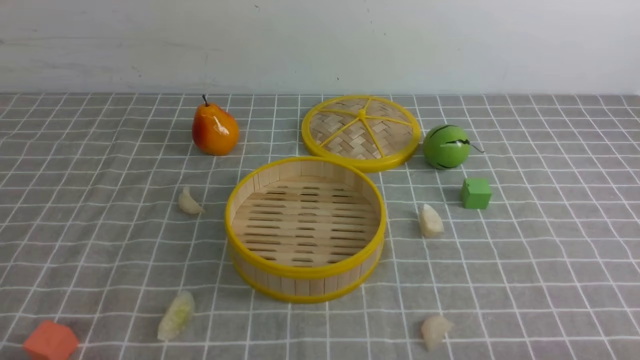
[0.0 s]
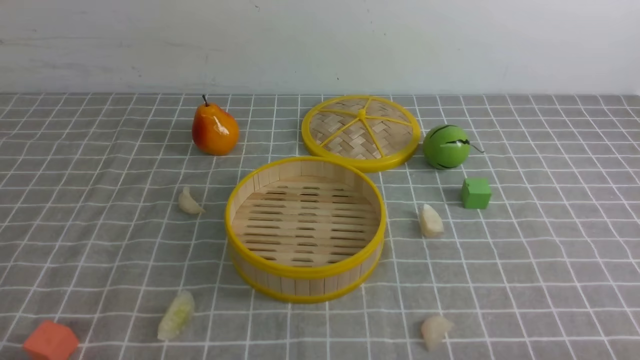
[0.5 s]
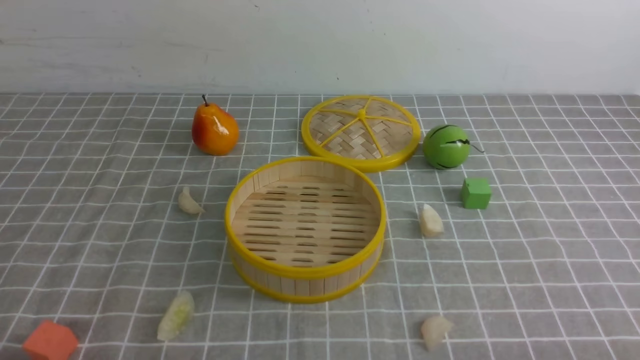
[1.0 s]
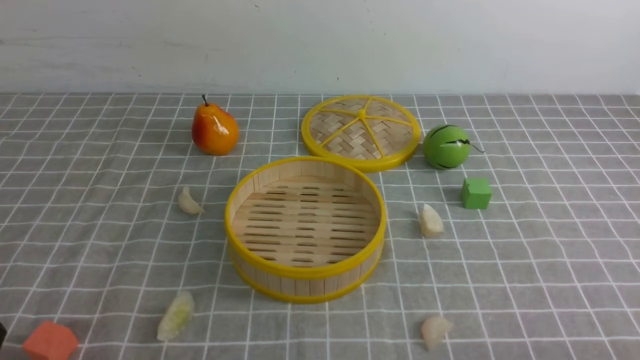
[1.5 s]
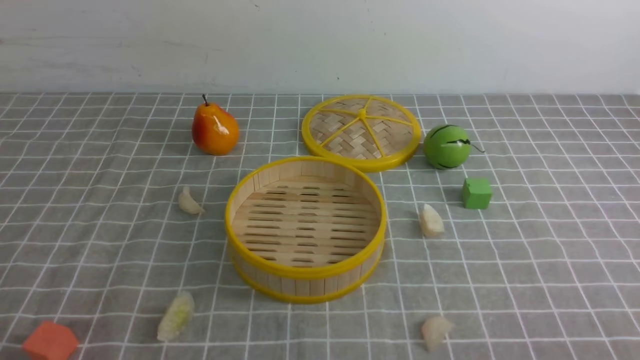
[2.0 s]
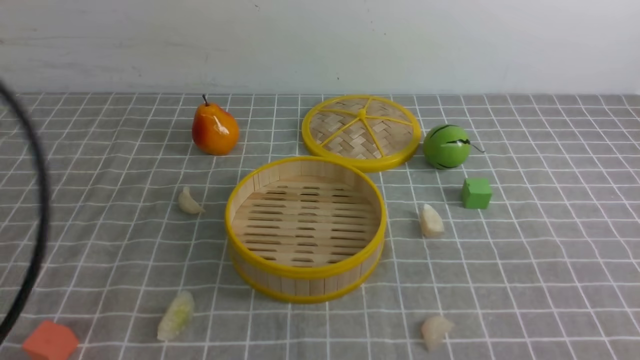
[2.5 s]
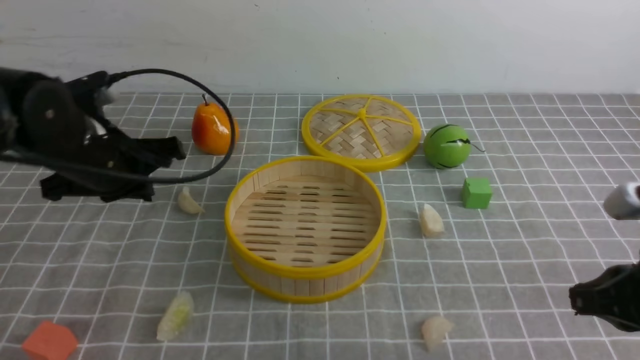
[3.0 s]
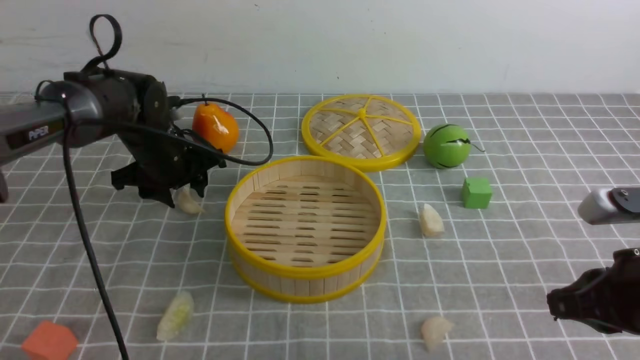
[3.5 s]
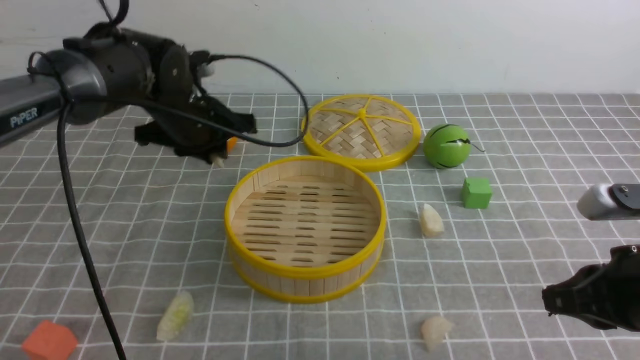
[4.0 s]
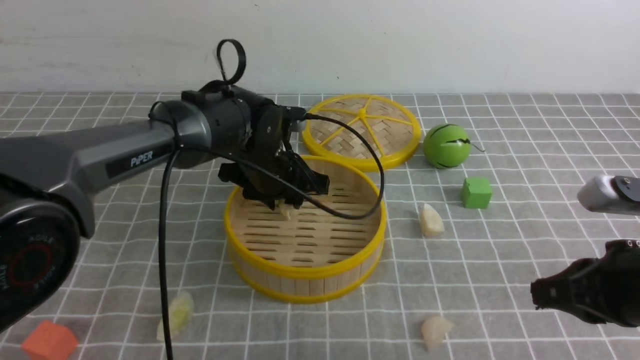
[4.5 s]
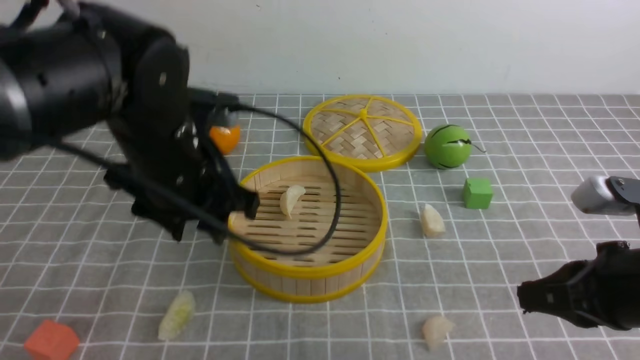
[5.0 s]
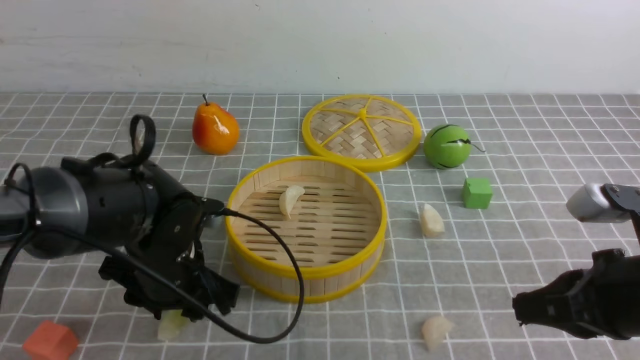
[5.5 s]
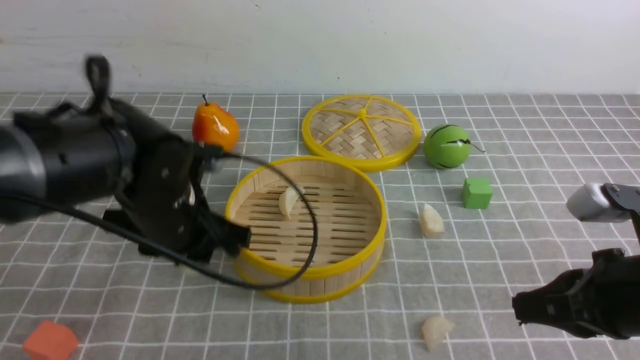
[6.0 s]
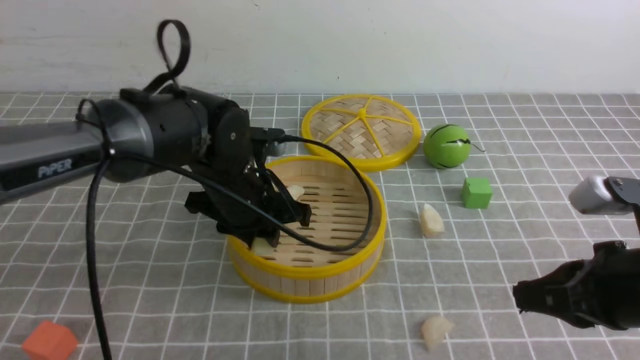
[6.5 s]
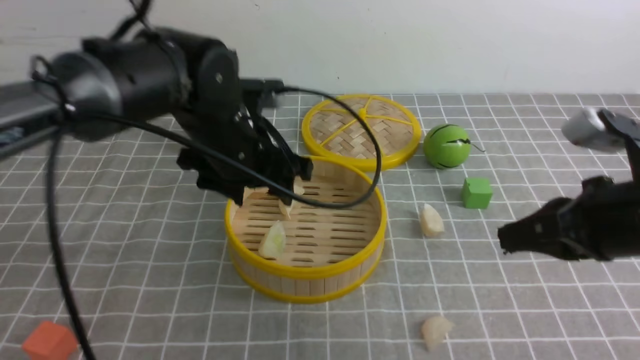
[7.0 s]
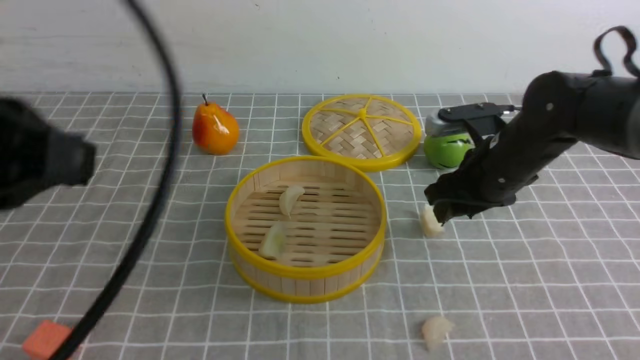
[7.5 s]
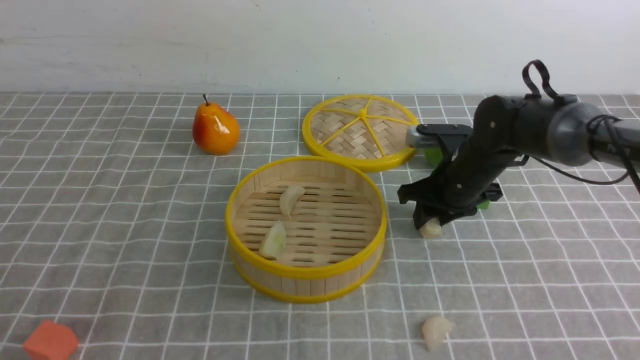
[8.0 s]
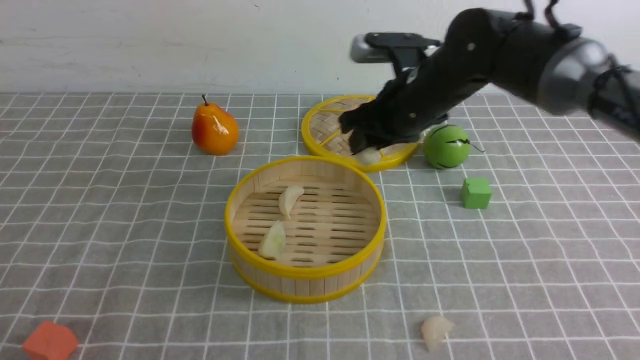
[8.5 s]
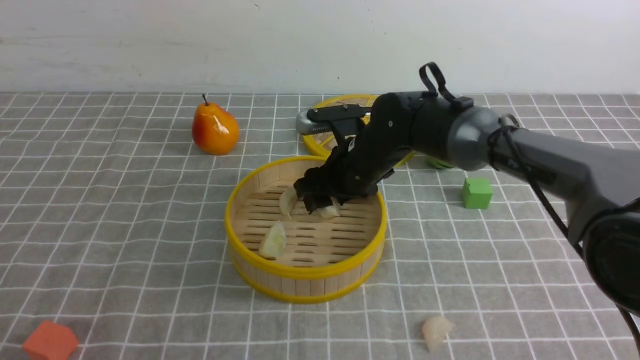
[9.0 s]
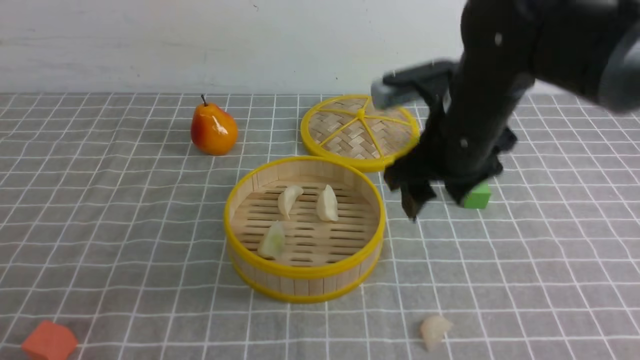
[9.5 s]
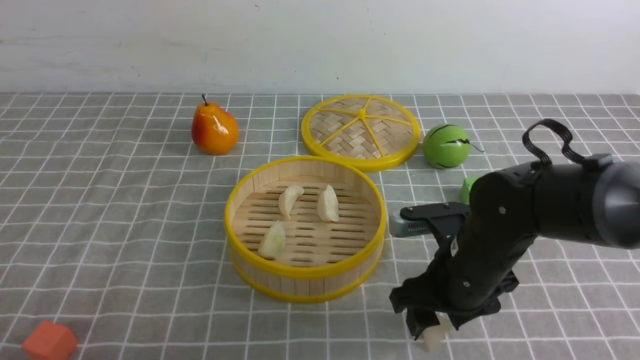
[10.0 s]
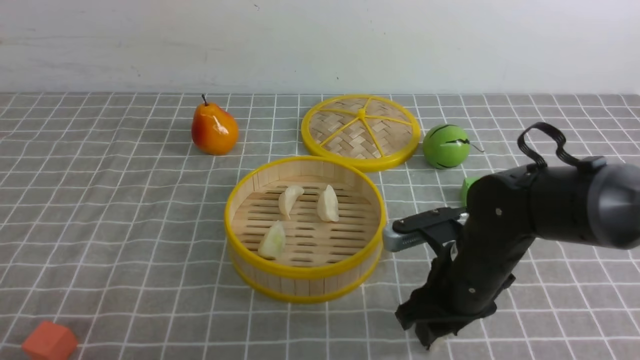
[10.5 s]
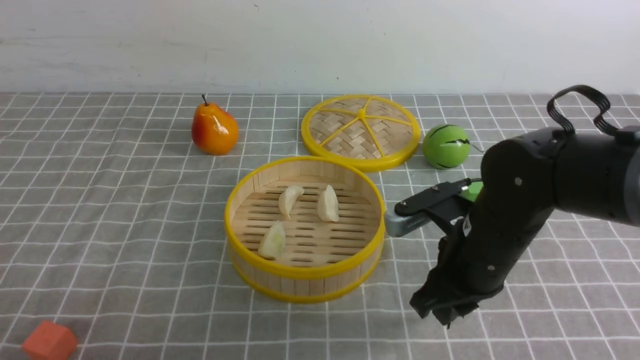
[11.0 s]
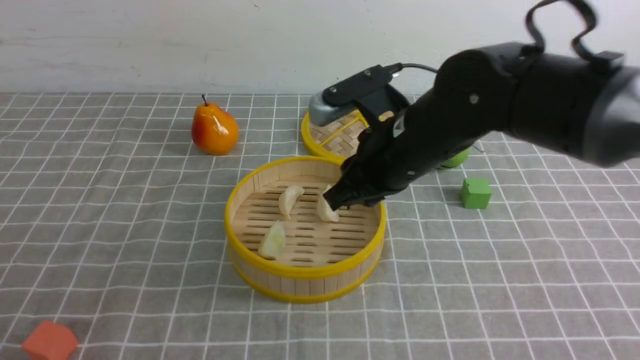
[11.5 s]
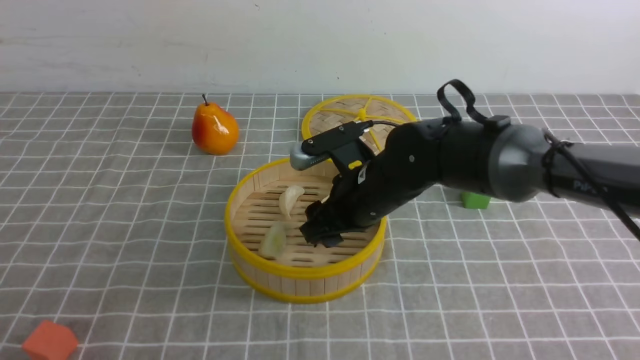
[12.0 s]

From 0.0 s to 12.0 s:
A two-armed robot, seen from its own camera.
Task of the whole recording: put the dumplings into the steamer on the table with the grey tablecloth.
Step, from 0.0 s to 3.5 s: use the left arm to grab a dumpling.
Step, from 4.0 s to 4.5 s: use the left arm to put the dumpling into the steamer.
Step, from 5.0 s to 5.5 s: use the left arm to grab a dumpling.
Step, from 6.0 s to 7.0 s: use the left arm to put the dumpling into the steamer.
Step, from 7.5 s to 8.0 s: use the right arm to grab a dumpling.
Step, from 8.5 s to 9.0 s: use the right arm to put the dumpling into the steamer.
Step, from 9.5 s to 10.5 s: use the right arm to grab a dumpling.
From 2.0 s to 4.0 s: The right gripper shifts approximately 15 cm forward. The left gripper heads forward, covering some 40 cm.
From 4.0 s to 6.0 s: The left gripper goes roughly 15 cm backward, and opens, then closes once more.
From 6.0 s to 8.0 s: The left gripper shifts about 30 cm backward and to the left, and closes its fingers. The right gripper moves forward, about 25 cm, and opens up.
From 8.0 s to 10.0 s: The right gripper goes approximately 15 cm backward; the left gripper heads downward, covering approximately 5 cm.
From 10.0 s to 12.0 s: The right gripper is displaced to the left, forward and upward by approximately 10 cm, and closes and opens again.

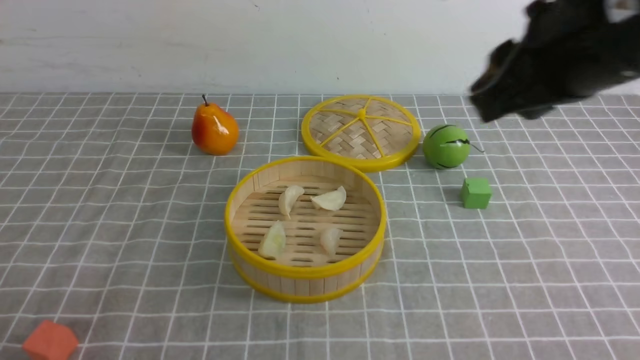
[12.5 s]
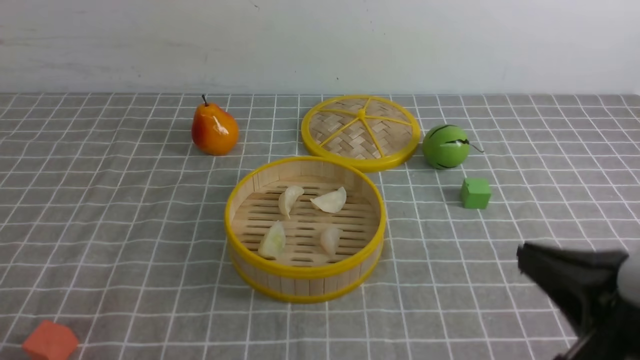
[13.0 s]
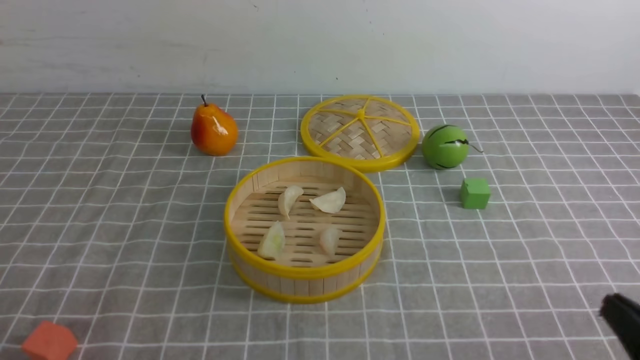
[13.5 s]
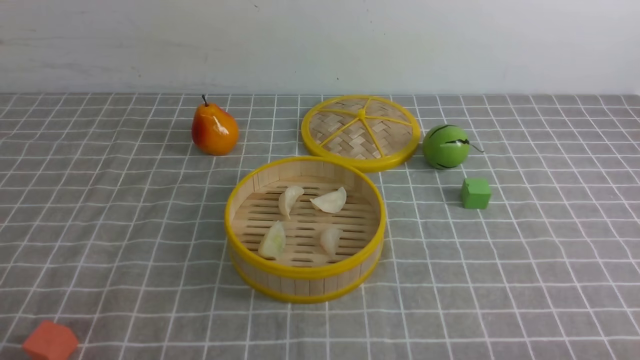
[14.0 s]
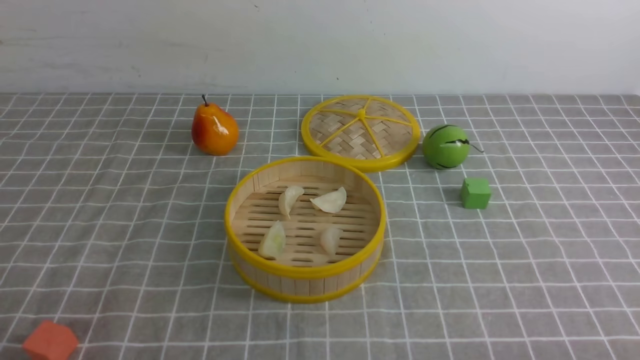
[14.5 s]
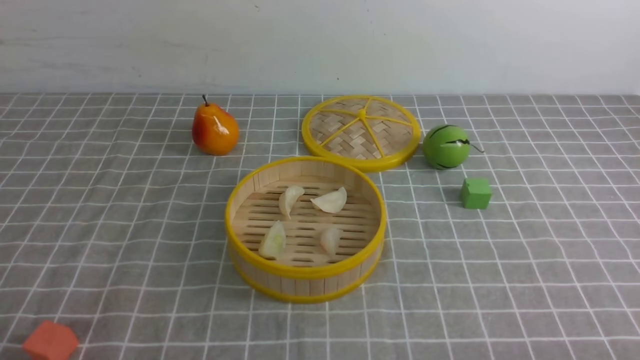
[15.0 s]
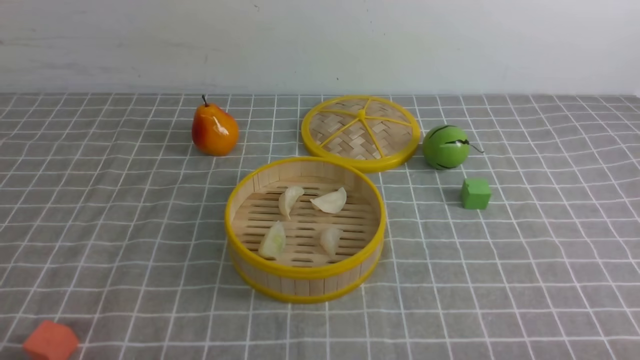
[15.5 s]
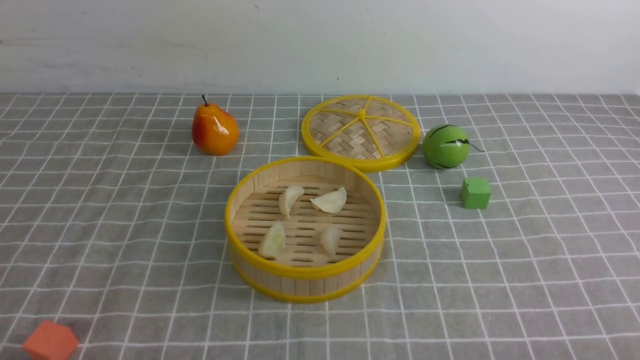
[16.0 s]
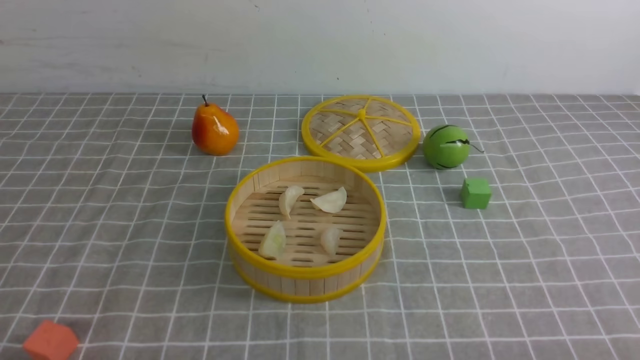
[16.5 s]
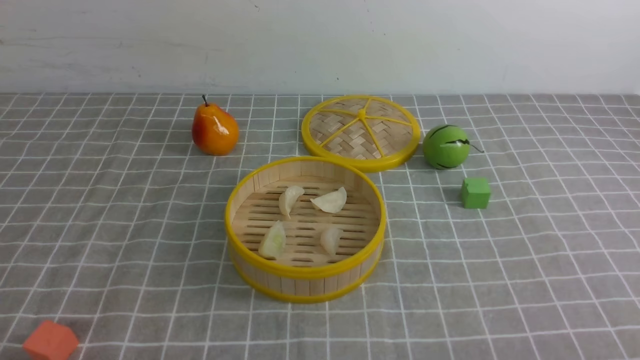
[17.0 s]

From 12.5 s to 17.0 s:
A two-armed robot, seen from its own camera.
Task of the whole recording: put the dumplings into the steamer on the table with the grey tablecloth.
From 12.5 s to 14.5 s: The right gripper moves downward, backward and to the right, some 35 cm, and closes.
